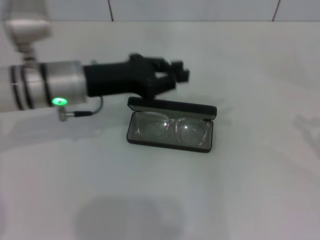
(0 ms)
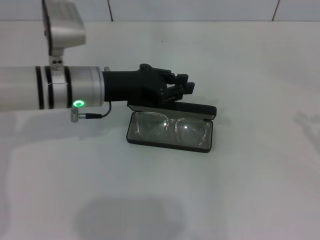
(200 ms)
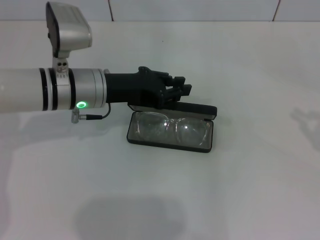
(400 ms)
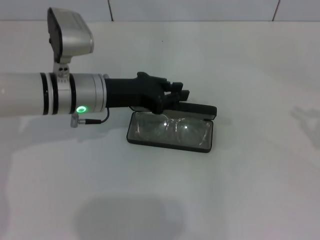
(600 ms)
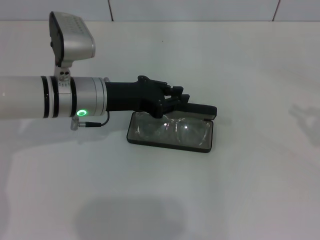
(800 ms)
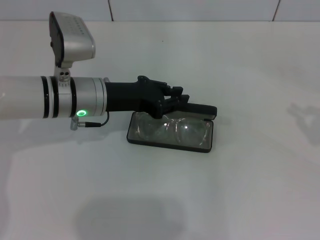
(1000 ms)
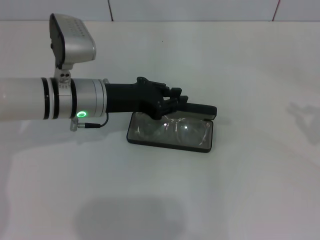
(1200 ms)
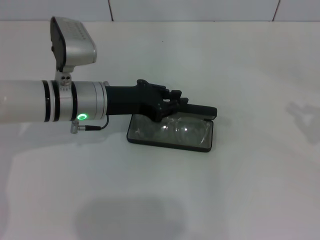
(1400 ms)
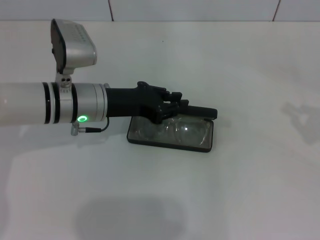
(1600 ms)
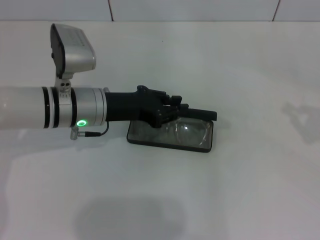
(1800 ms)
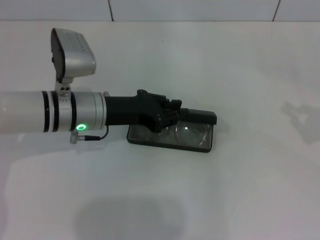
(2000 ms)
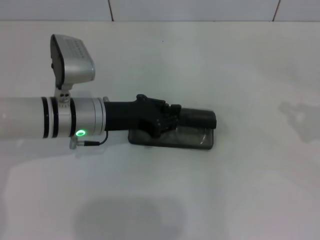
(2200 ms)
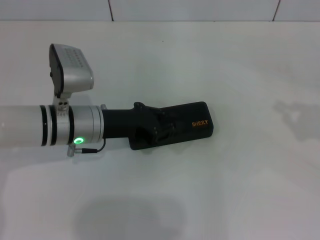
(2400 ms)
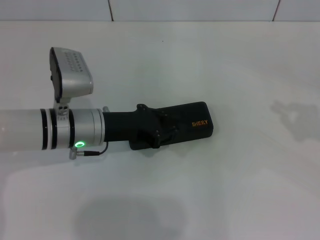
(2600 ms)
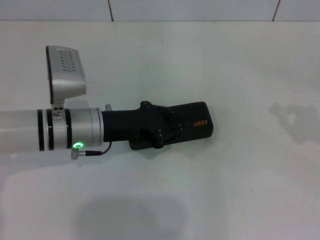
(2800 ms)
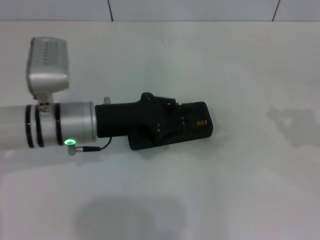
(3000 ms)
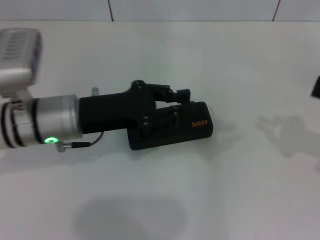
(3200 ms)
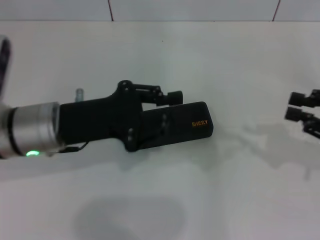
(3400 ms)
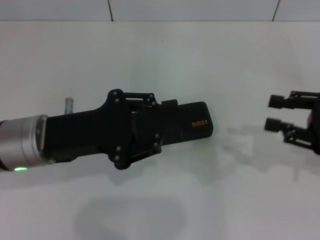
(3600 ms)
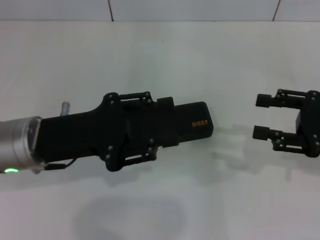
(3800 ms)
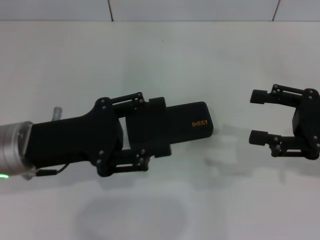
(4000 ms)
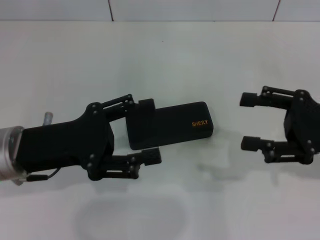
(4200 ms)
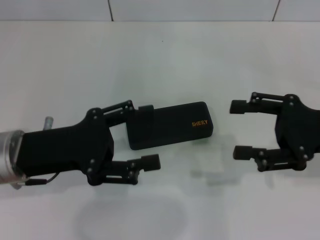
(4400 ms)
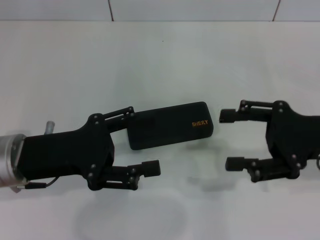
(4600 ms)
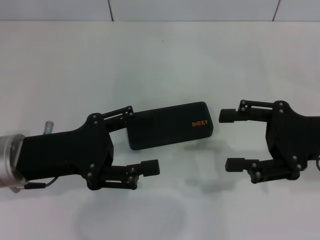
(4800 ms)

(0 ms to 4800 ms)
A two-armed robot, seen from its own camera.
Step, 0 ms - 2600 ms: Close the glasses case with your left hand.
0 ms - 1600 ms: The grippers make only small movements.
1600 ms - 3200 ms: The left gripper ends up roughly 5 cm from where it was.
3200 ms - 4800 ms: The right gripper heads to the left, covering some 10 cm, and opens its fingers, while the left gripper moves backward and to the left, approximately 10 cm, and opens up.
